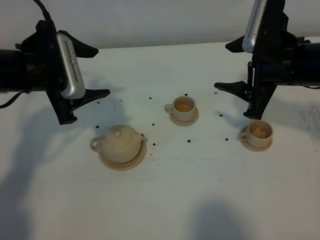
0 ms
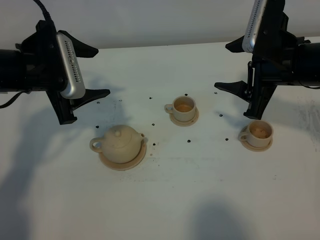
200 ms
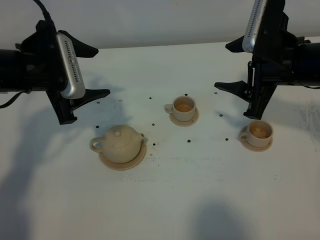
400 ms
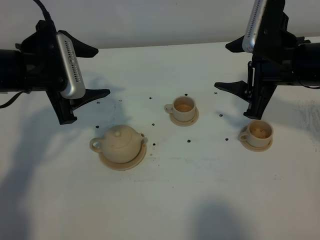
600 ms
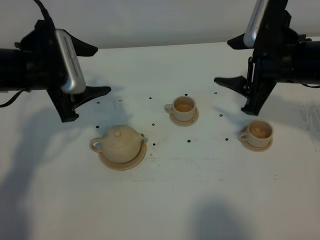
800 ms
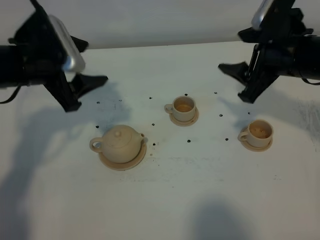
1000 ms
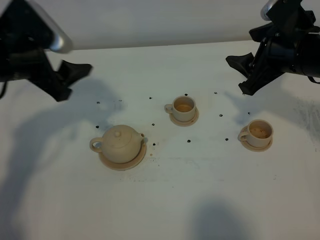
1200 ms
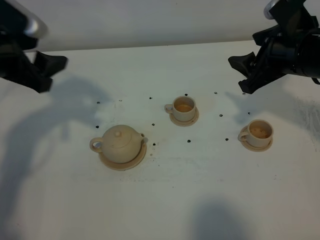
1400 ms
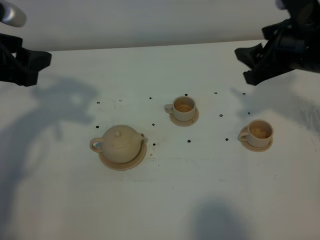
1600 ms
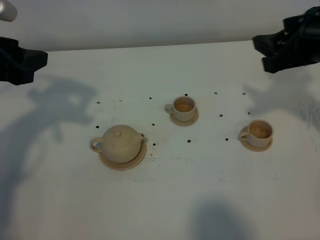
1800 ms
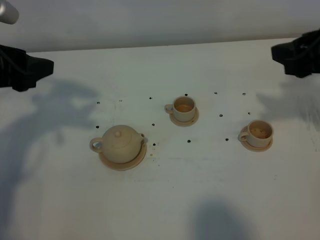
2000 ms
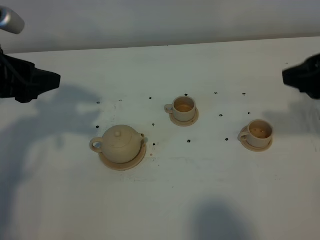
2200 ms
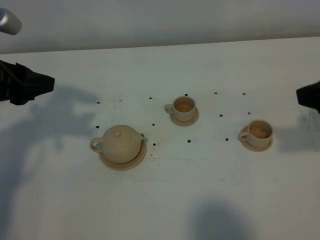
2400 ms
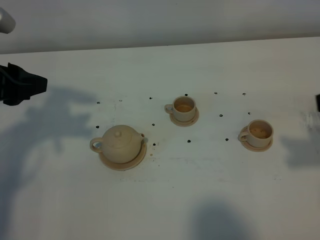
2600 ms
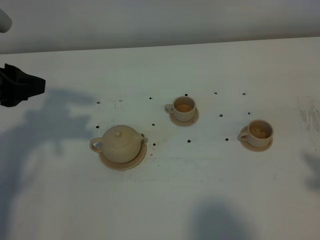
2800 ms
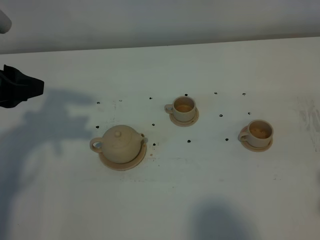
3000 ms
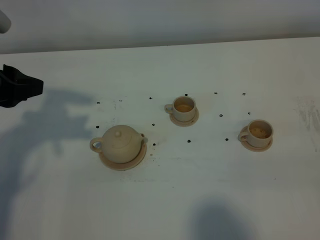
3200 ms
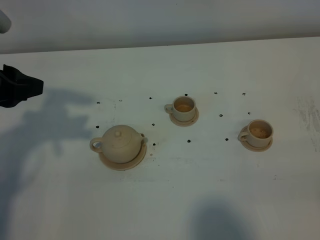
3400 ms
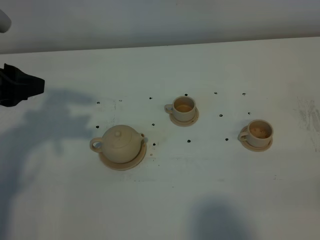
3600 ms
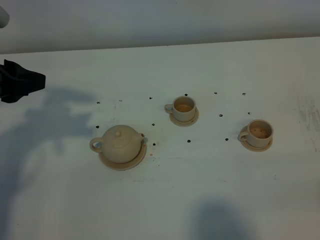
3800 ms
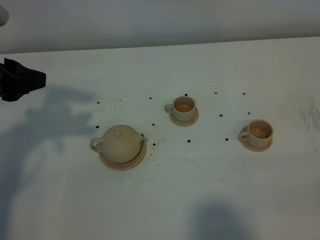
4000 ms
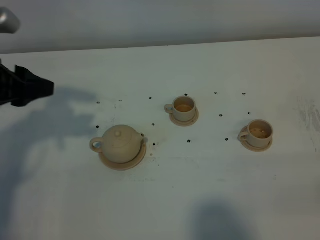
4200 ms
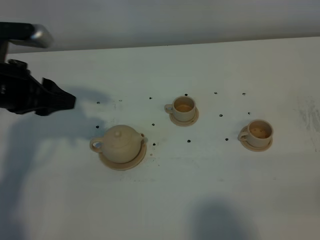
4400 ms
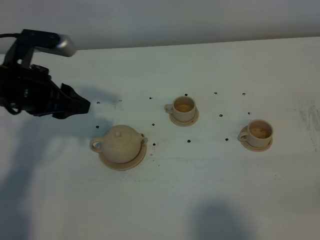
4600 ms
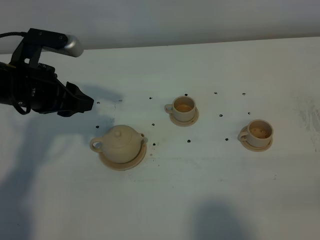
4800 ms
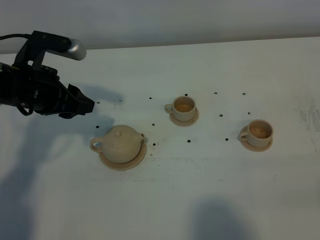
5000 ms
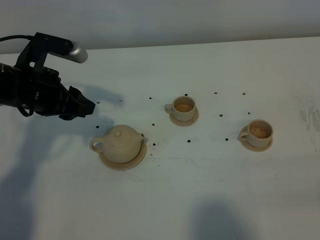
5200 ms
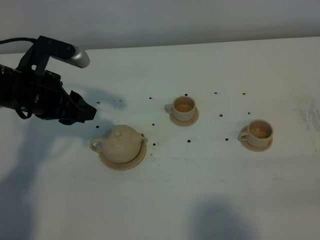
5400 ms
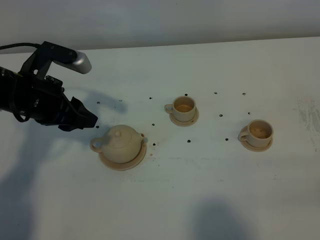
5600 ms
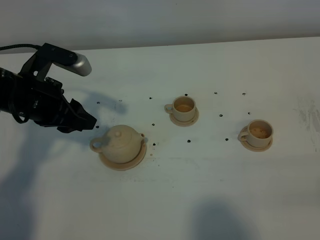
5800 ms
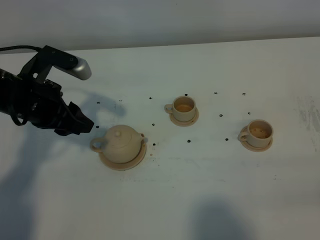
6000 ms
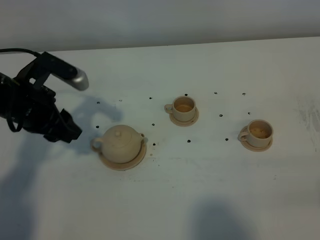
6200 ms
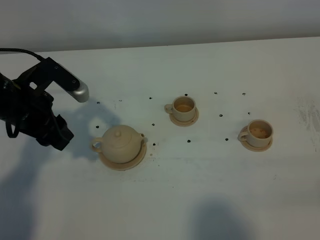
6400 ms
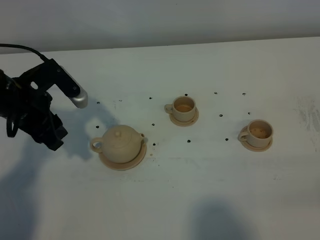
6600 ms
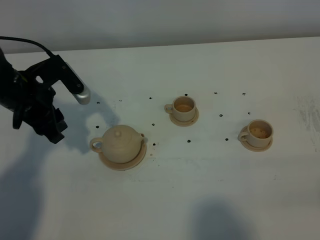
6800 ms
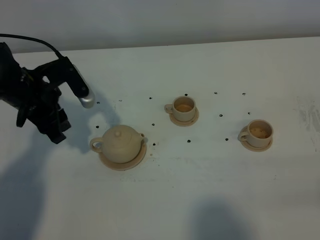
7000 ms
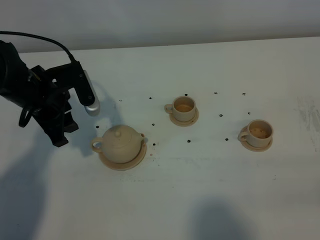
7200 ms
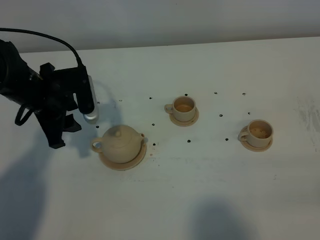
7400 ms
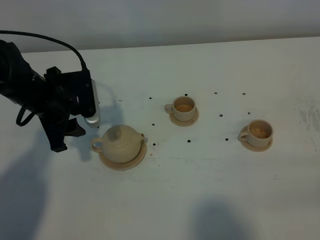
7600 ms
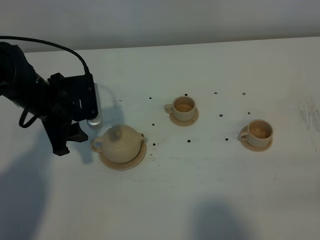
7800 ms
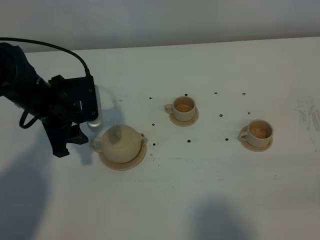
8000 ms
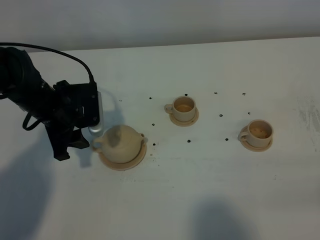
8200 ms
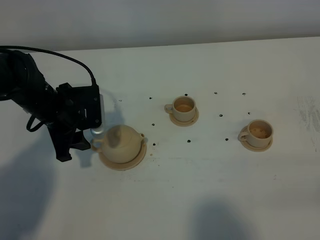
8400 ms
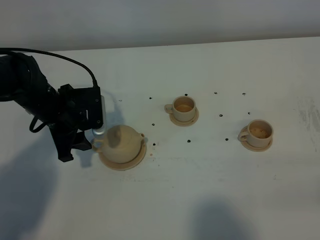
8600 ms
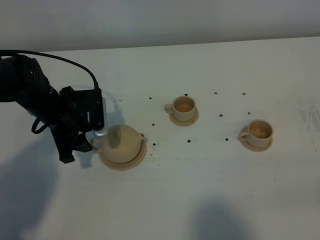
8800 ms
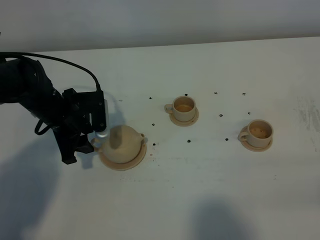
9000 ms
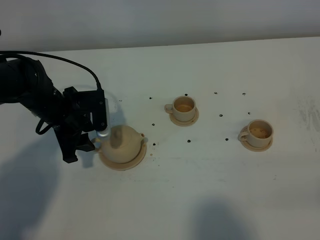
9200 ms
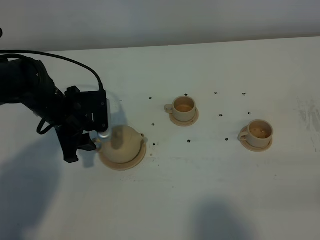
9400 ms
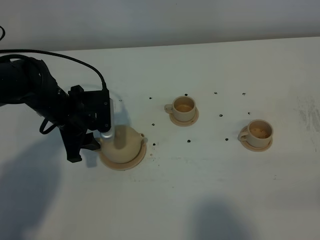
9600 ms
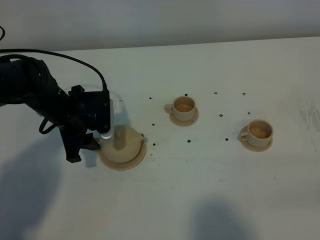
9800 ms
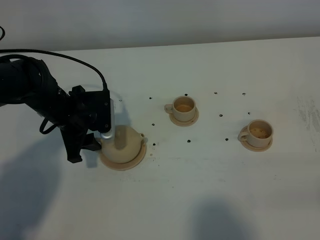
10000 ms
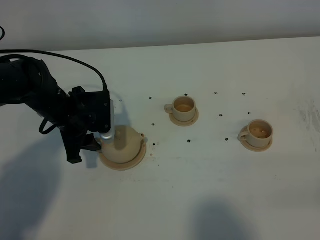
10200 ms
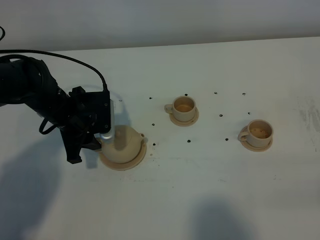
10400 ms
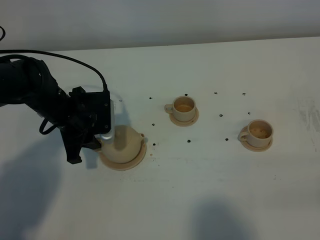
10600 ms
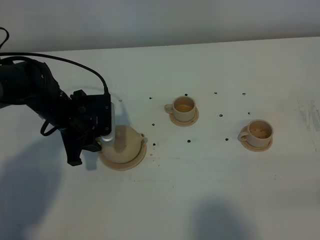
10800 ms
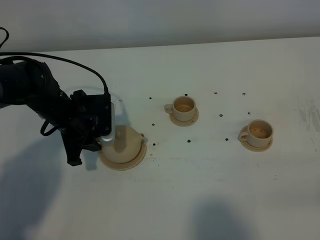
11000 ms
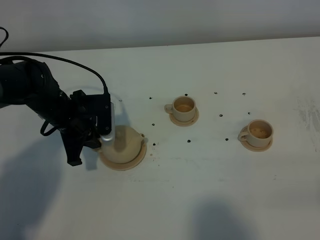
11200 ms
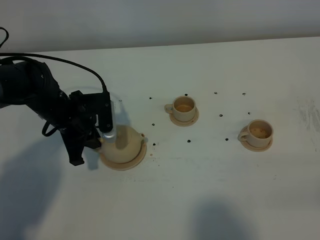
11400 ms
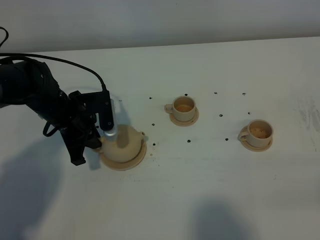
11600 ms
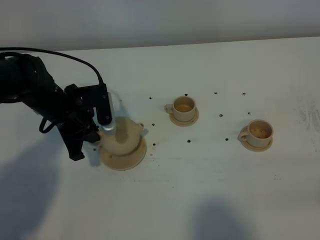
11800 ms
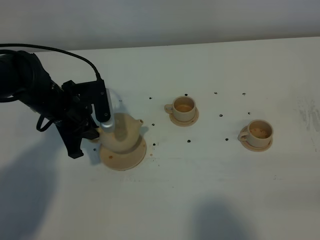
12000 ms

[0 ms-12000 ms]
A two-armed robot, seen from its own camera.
Task of the whole recording: grasp the brown teapot and pour the tea into the two brown teacups one by one, put the brown teapot back in its original place.
Step, 0 ms to 11600 ms: Pick up the teapot with the left gripper.
0 ms to 1600 ms: The left gripper moves to the left, approximately 5 cm.
1600 ms to 3000 ms: The right gripper moves backward, roughly 25 cm.
3000 ms to 4400 ms: The left gripper heads downward, covering about 5 cm.
4400 ms to 6000 ms: The grippers make only small movements.
7600 ms to 9000 ms: The left gripper is displaced downward by roughly 5 cm.
9000 ms to 10400 ms: Neither gripper changes place.
10400 ms to 12000 ms: The left gripper closes its fingers.

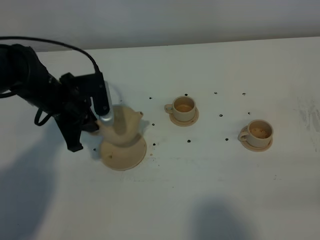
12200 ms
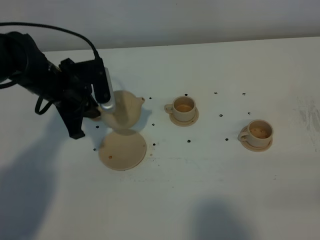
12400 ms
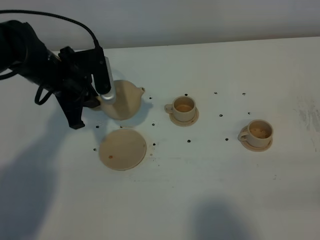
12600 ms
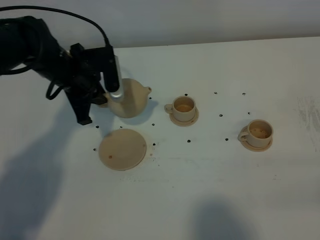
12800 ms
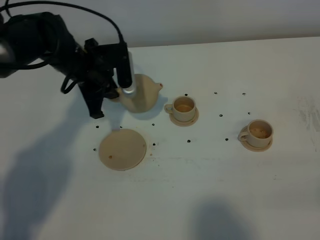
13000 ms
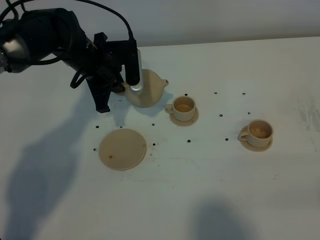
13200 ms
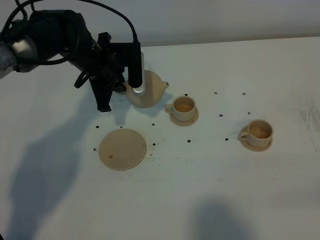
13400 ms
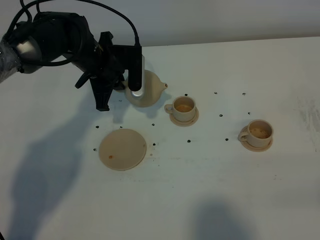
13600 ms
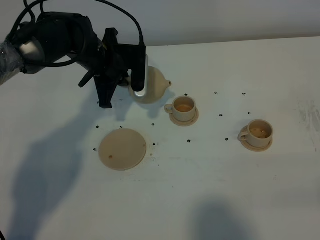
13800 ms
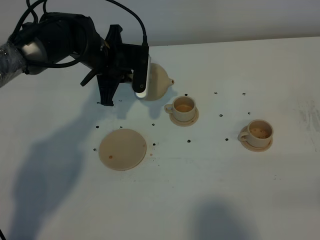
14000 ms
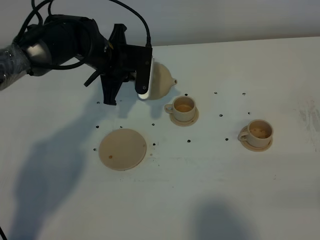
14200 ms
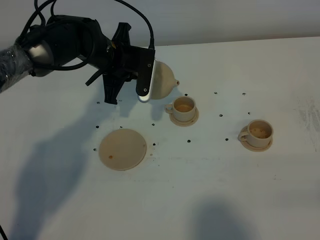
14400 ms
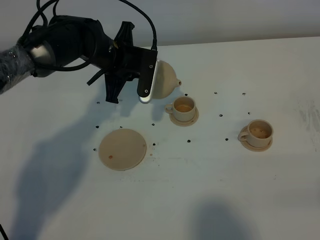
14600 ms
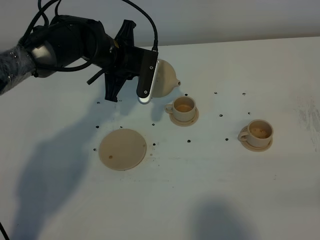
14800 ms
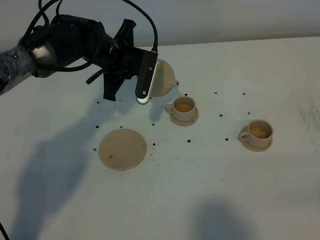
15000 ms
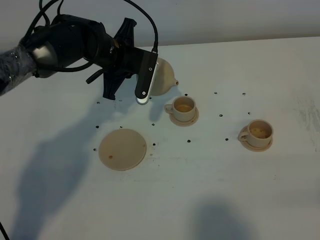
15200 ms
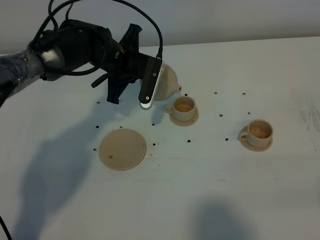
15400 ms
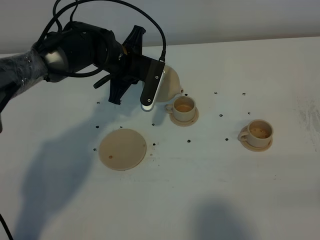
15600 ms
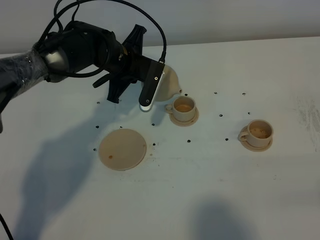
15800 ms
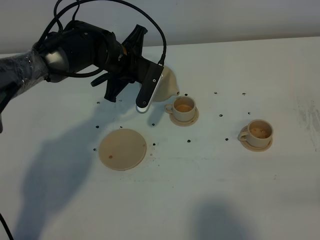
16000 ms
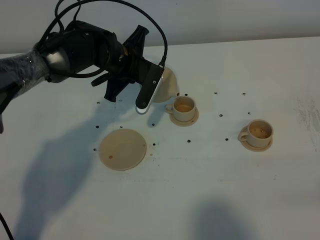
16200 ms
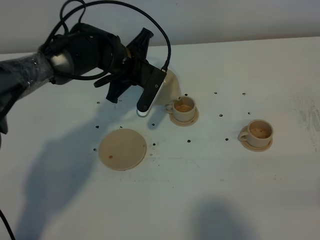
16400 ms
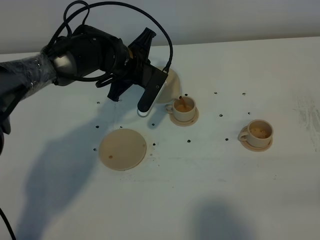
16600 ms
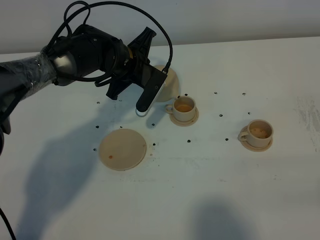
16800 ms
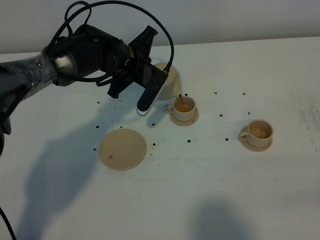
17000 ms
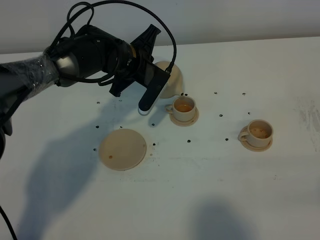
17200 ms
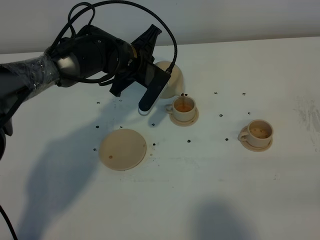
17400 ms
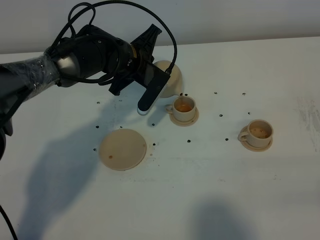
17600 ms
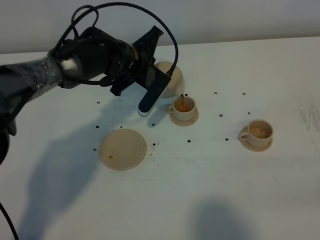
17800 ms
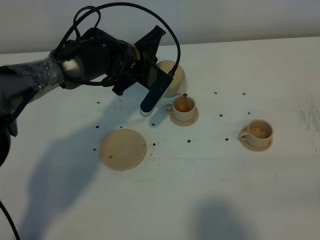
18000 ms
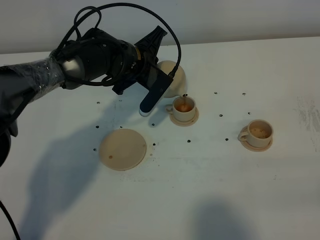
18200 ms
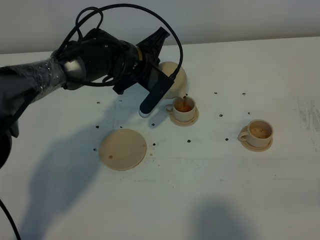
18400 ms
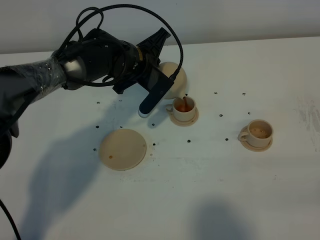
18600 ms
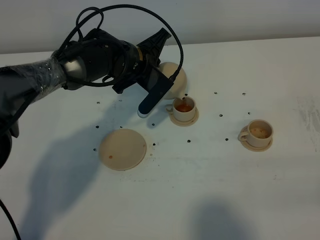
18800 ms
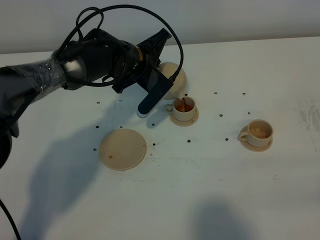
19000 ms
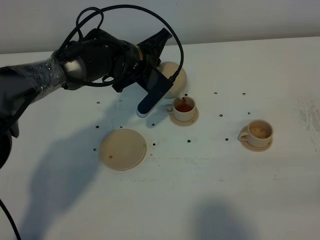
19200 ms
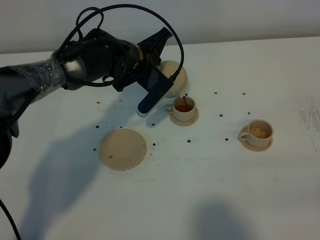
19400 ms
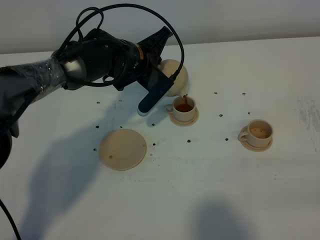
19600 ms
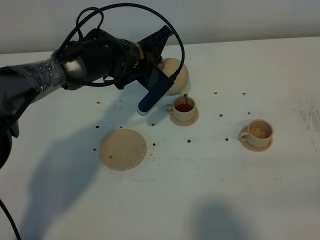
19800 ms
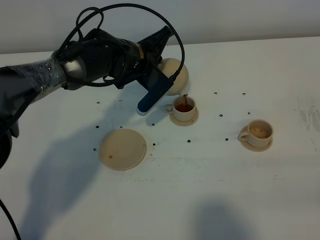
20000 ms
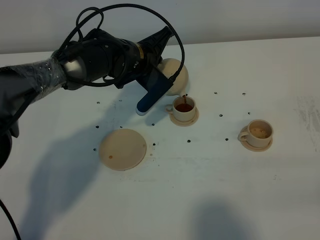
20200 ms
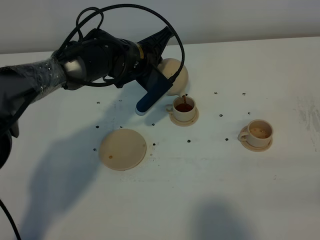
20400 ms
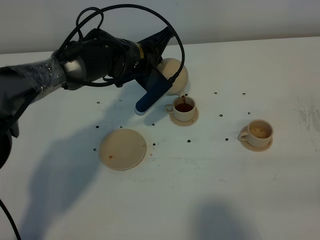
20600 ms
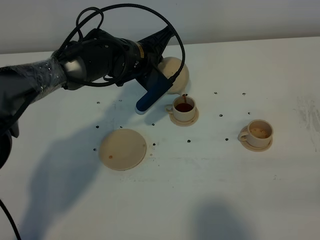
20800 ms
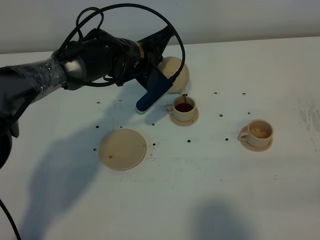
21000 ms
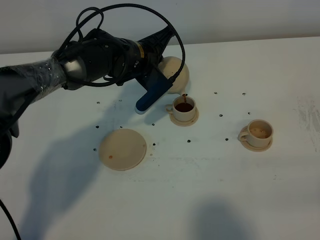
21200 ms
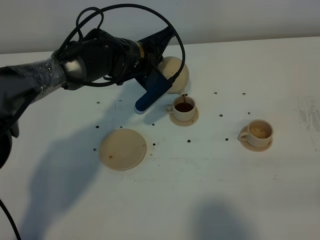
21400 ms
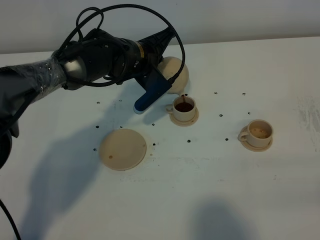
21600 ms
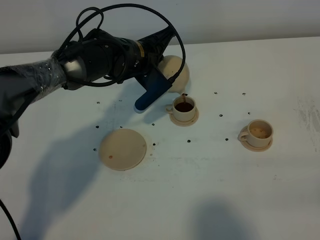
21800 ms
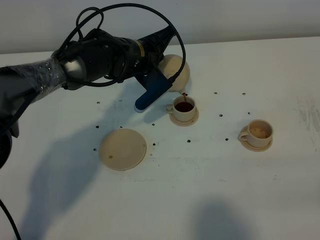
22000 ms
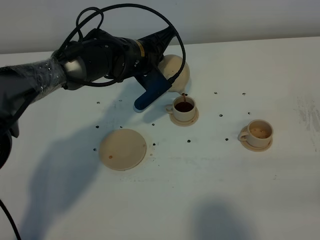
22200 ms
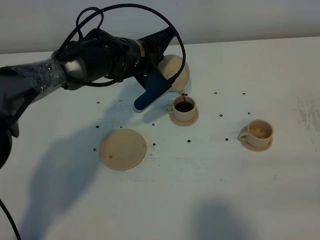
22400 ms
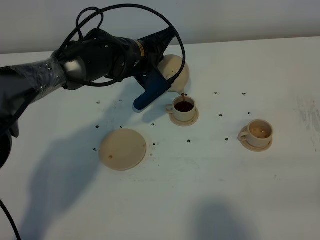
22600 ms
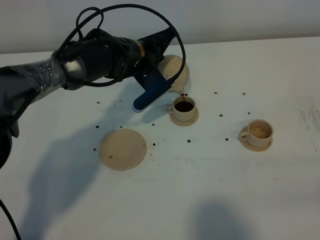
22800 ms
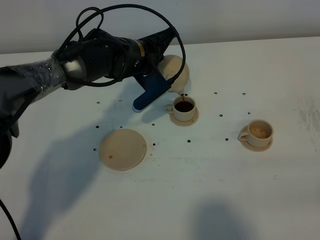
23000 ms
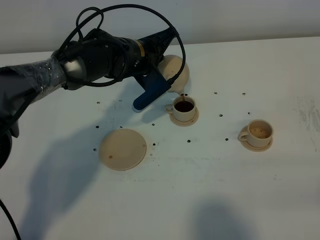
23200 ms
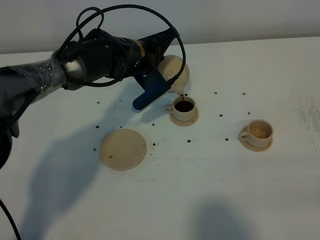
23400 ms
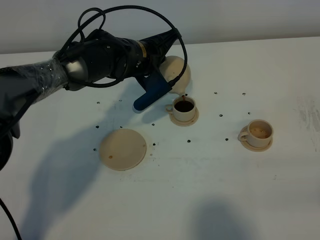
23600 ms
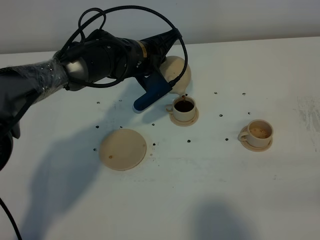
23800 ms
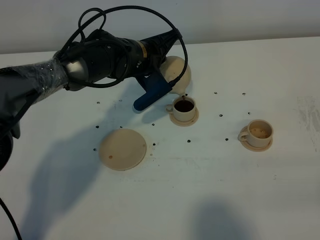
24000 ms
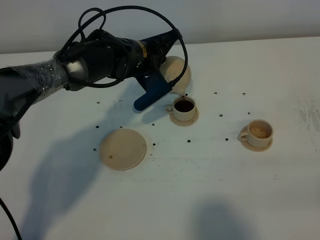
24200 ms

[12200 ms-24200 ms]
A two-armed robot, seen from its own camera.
Task of the whole recording: grasp the brown teapot and pour the tea into the two brown teacups one by one, put the brown teapot back in its original place.
12200 ms to 13800 ms: The left gripper goes approximately 10 cm forward and to the right.
13800 ms to 15200 ms: The grippers move only a little.
15200 ms to 16600 ms: The grippers move only a little.
16600 ms to 19800 ms: The grippers move only a little.
19800 ms to 21200 ms: Both grippers stay about where they are.
21200 ms to 22600 ms: Both grippers stay put.
22600 ms to 24200 ms: Both grippers stay about where they are.
